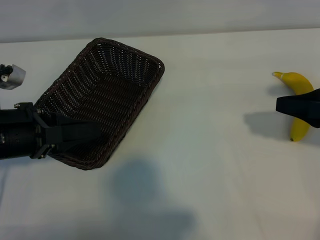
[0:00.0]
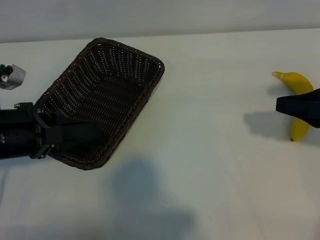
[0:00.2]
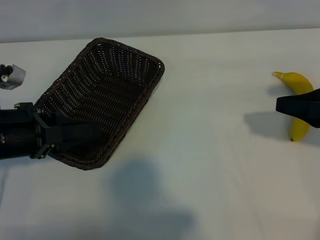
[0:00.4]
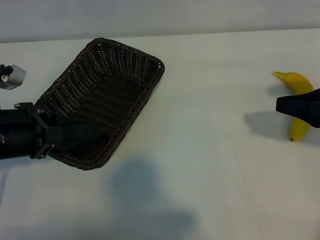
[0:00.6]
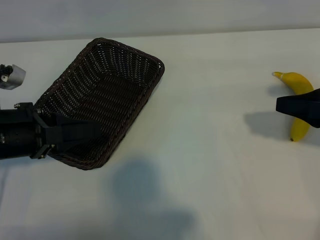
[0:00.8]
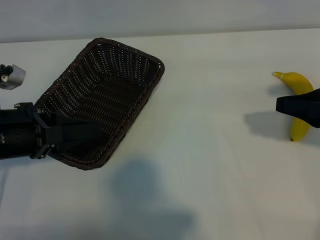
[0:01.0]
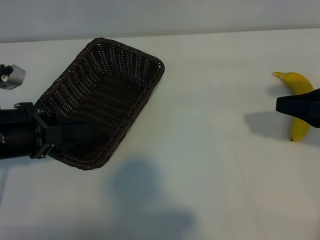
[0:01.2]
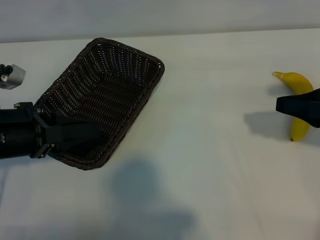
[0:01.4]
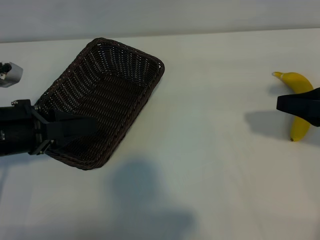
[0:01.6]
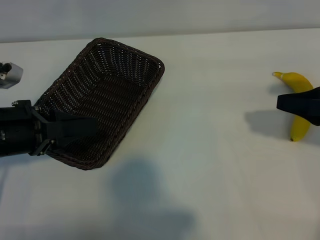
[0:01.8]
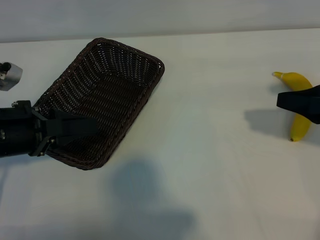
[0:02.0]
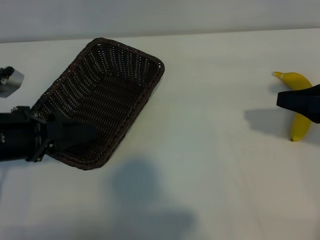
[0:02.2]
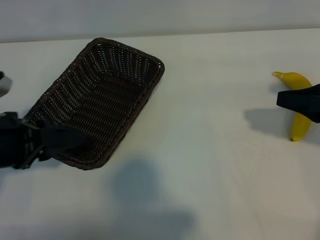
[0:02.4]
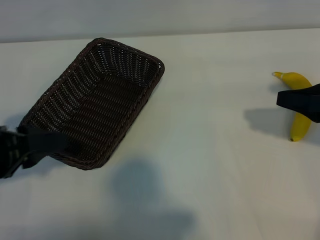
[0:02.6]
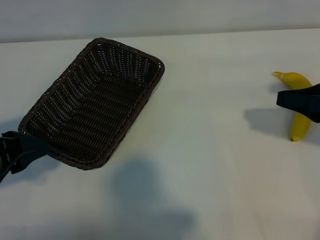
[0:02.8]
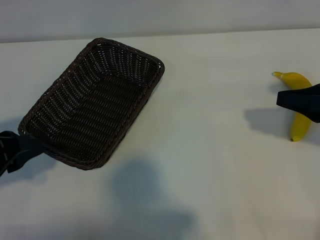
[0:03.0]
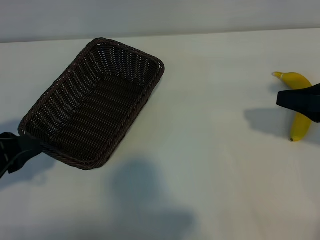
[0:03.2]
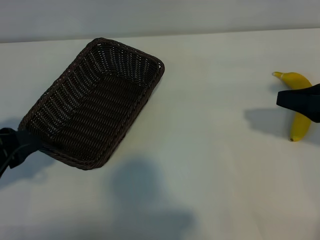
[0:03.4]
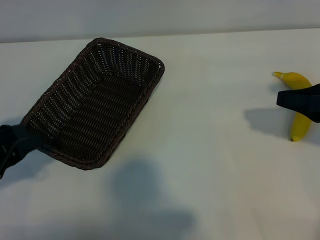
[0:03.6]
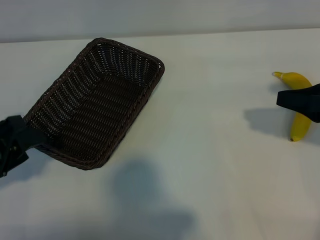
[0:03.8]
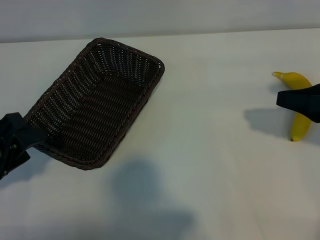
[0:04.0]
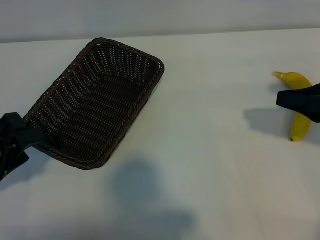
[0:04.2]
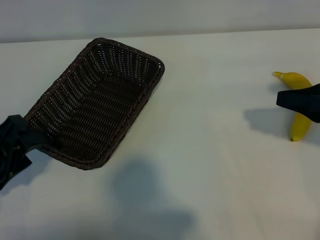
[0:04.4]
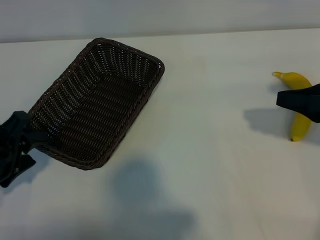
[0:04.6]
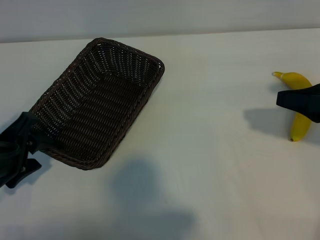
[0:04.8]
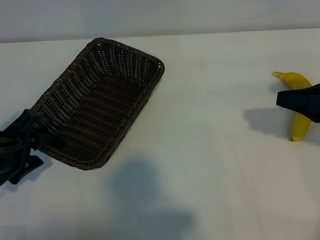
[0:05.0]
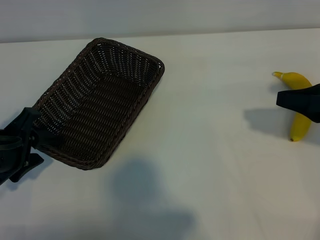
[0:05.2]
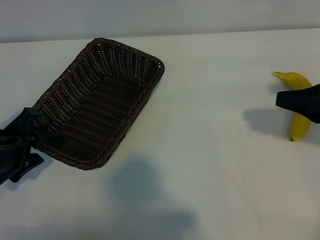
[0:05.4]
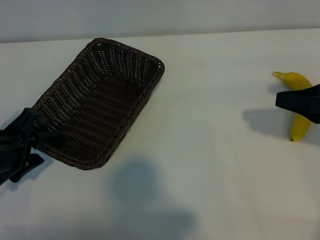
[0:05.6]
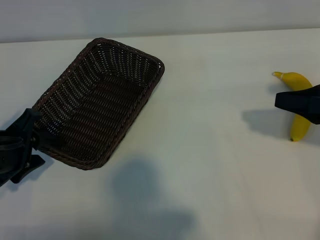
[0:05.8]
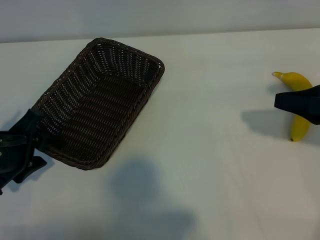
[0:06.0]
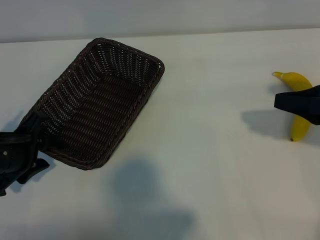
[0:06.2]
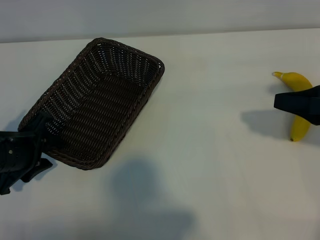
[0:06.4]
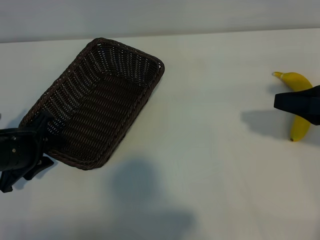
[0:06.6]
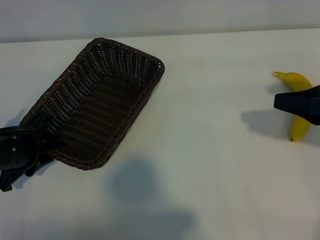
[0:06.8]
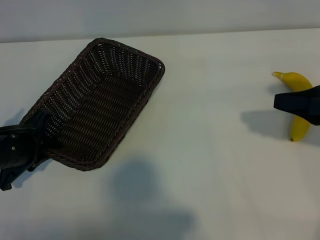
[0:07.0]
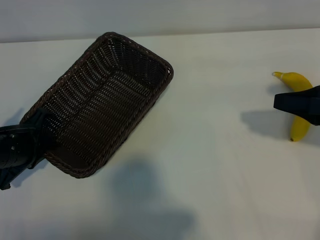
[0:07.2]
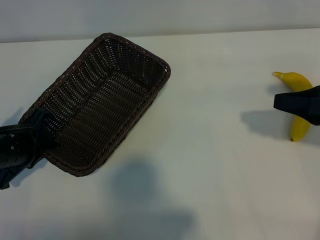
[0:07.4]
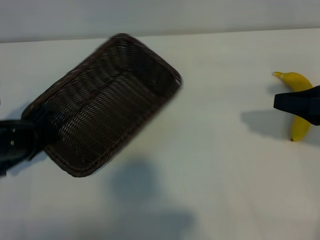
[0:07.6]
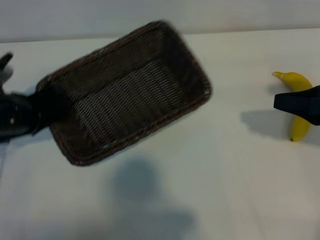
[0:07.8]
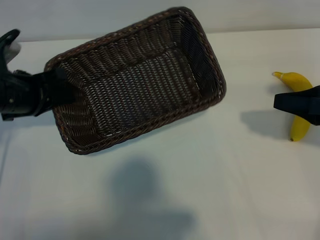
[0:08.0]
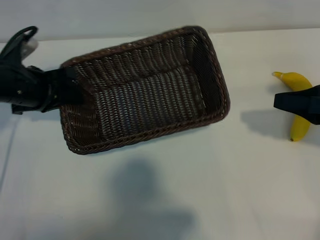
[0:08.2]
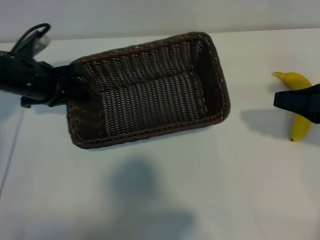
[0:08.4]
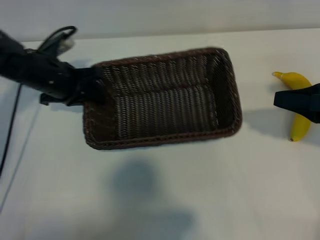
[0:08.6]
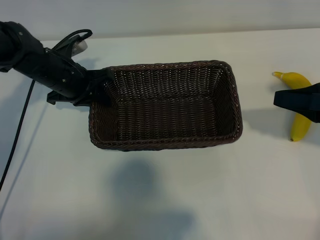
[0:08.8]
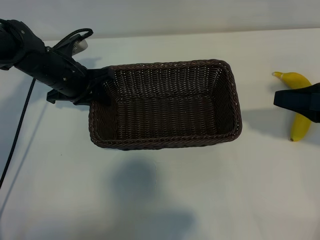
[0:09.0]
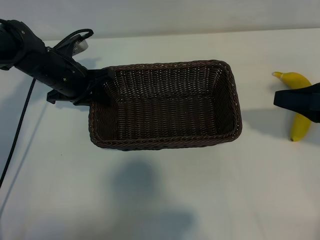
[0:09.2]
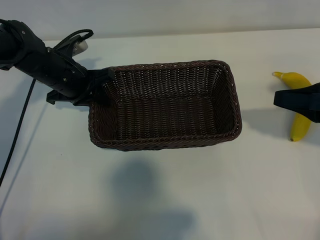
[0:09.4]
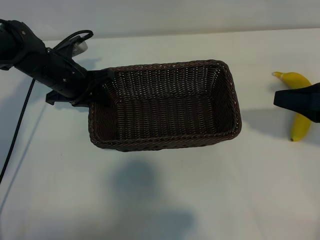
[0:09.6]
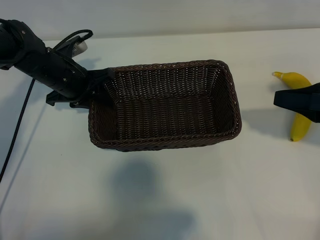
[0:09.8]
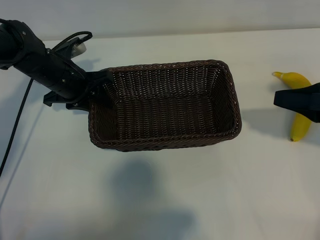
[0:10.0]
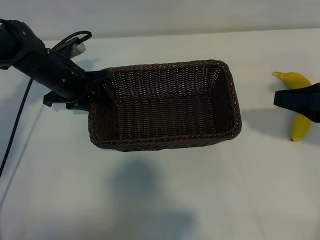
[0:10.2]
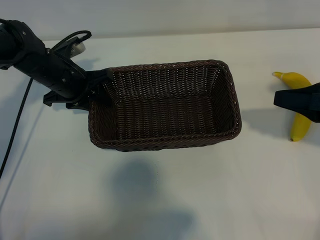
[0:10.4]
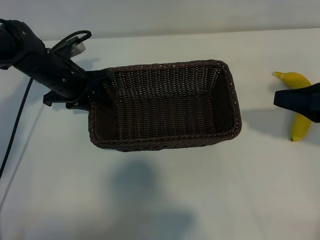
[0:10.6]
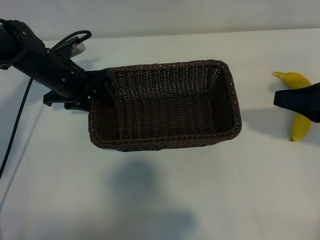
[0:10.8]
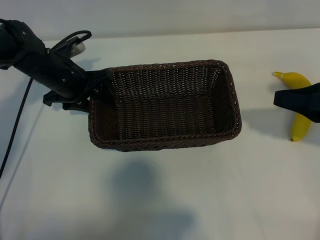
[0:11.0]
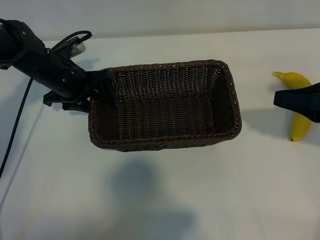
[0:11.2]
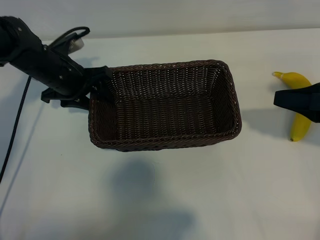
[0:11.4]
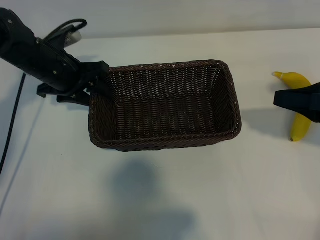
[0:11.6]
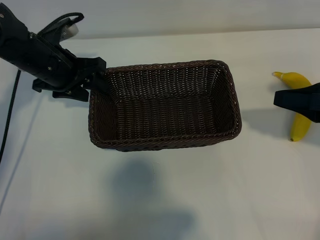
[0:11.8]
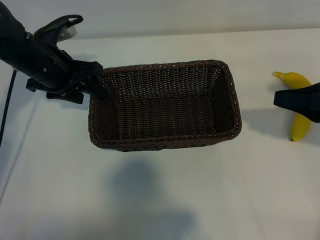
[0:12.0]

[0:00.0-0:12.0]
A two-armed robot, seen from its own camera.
Task of the whole recording: pick up the banana and put it into the basket.
Step, 0:01.2 to 0:07.0: Grasp the basket with the left gripper.

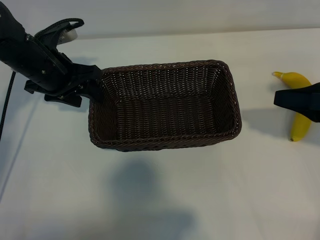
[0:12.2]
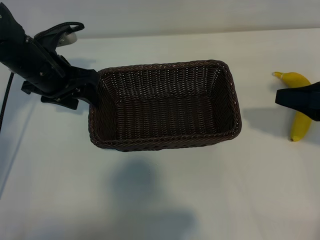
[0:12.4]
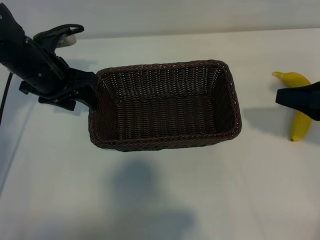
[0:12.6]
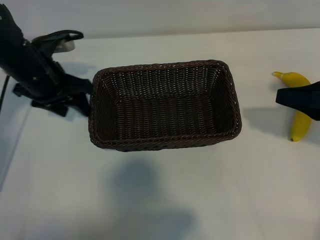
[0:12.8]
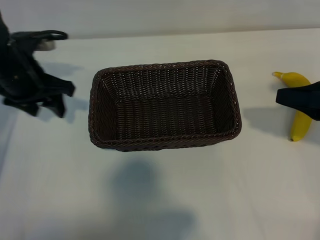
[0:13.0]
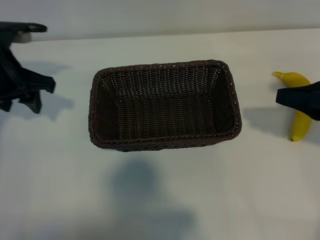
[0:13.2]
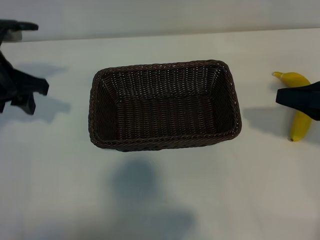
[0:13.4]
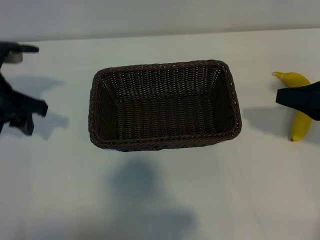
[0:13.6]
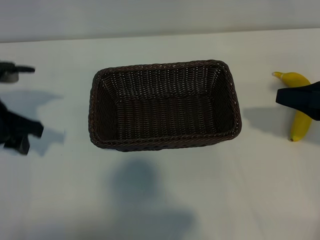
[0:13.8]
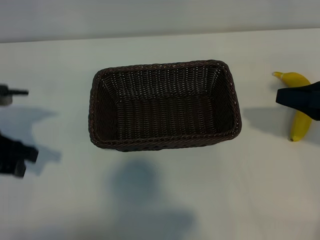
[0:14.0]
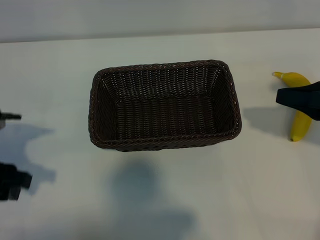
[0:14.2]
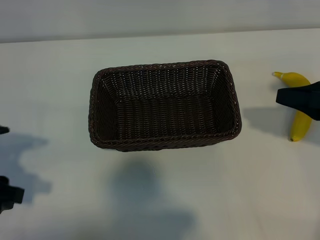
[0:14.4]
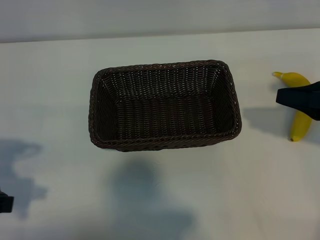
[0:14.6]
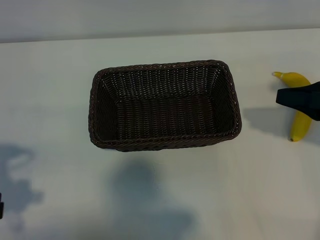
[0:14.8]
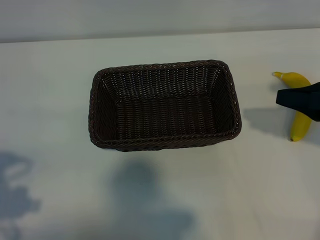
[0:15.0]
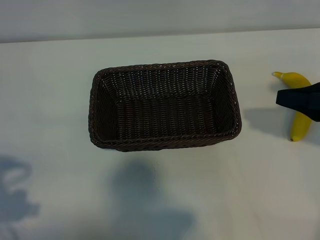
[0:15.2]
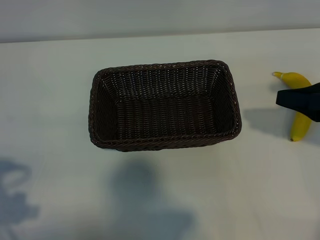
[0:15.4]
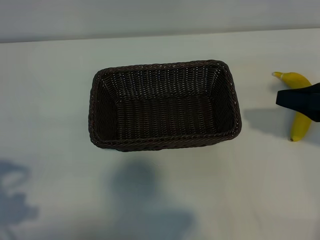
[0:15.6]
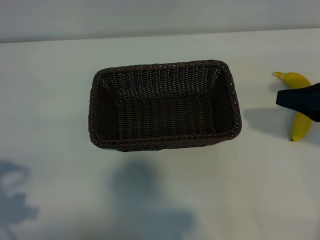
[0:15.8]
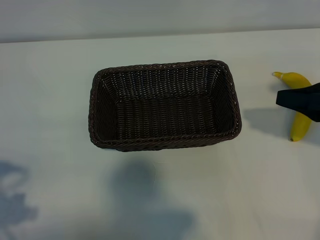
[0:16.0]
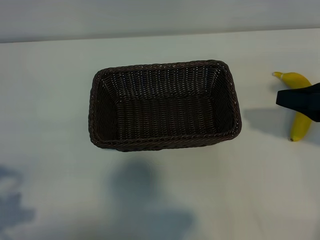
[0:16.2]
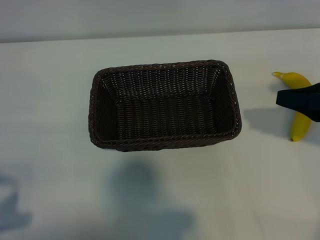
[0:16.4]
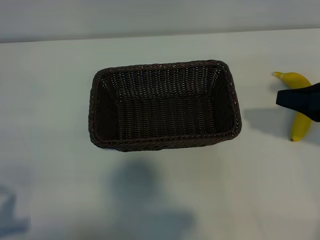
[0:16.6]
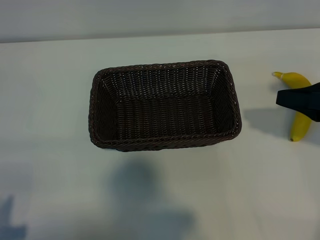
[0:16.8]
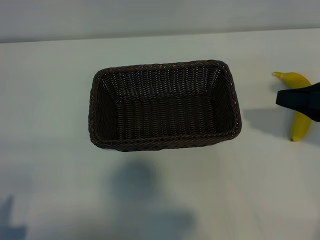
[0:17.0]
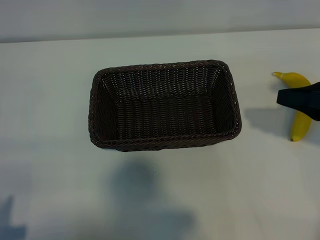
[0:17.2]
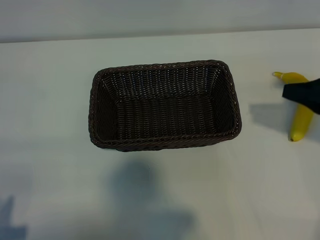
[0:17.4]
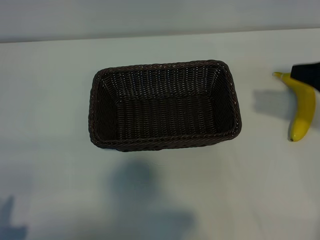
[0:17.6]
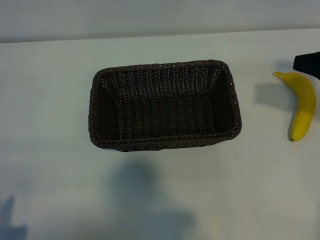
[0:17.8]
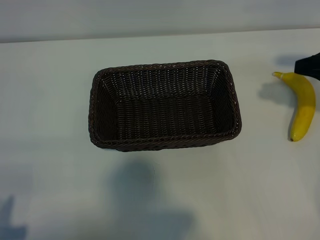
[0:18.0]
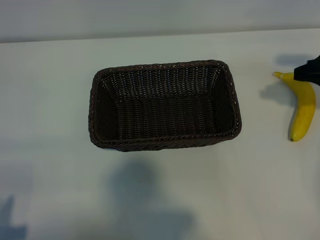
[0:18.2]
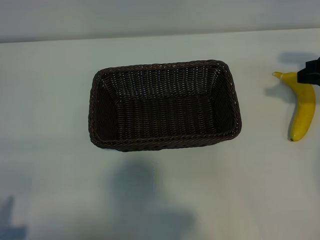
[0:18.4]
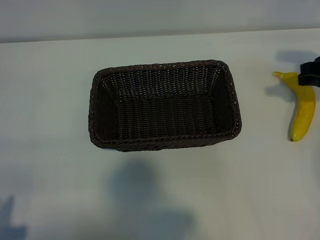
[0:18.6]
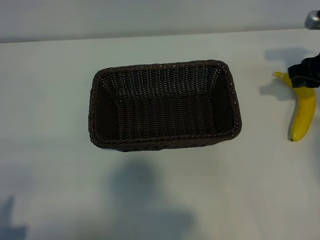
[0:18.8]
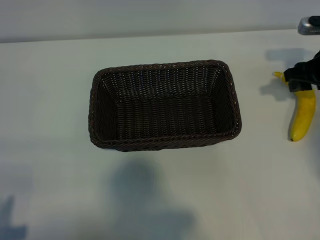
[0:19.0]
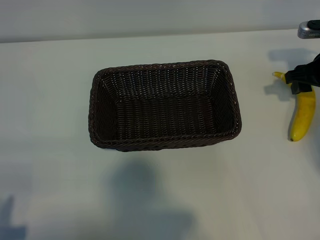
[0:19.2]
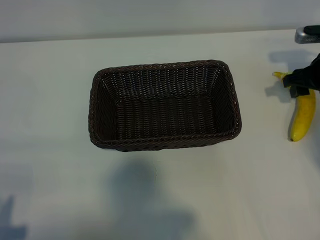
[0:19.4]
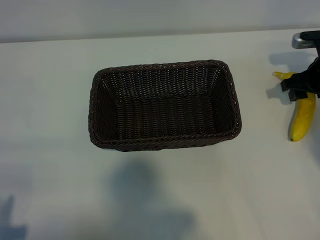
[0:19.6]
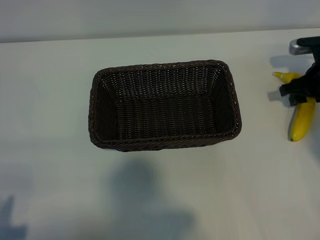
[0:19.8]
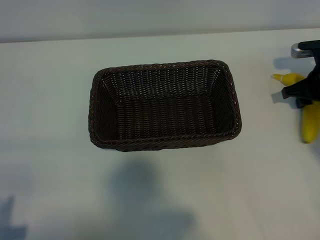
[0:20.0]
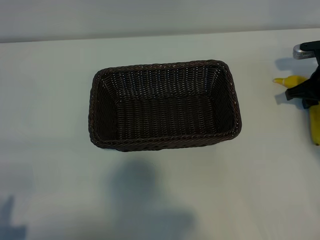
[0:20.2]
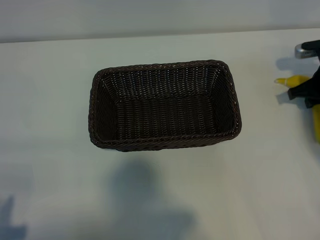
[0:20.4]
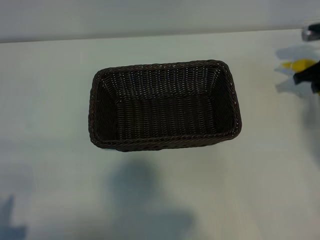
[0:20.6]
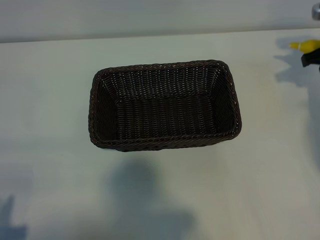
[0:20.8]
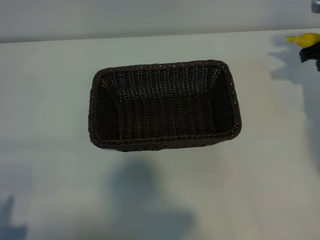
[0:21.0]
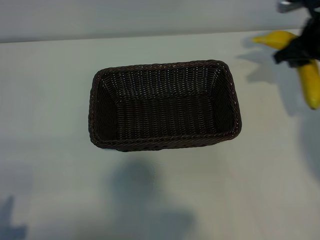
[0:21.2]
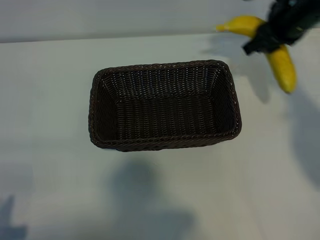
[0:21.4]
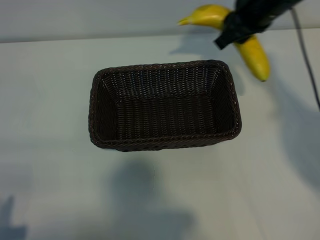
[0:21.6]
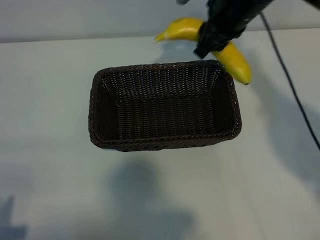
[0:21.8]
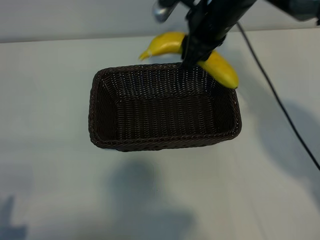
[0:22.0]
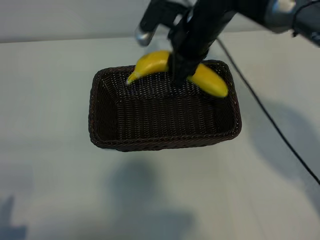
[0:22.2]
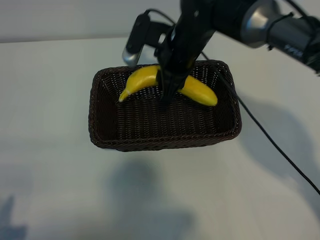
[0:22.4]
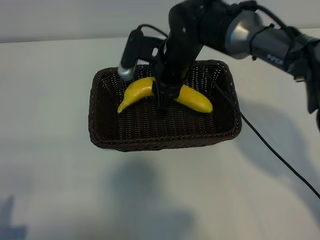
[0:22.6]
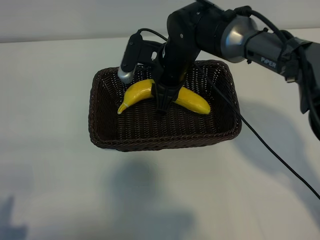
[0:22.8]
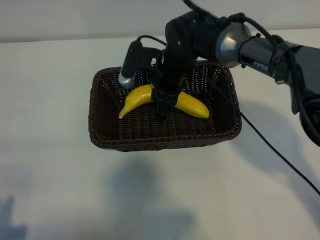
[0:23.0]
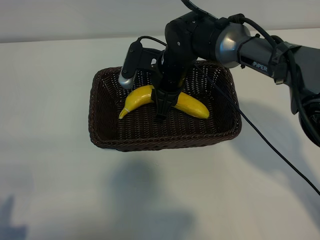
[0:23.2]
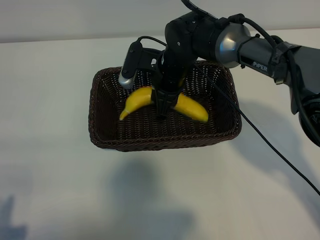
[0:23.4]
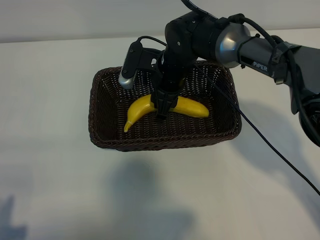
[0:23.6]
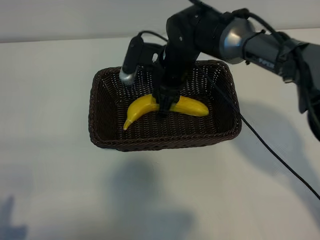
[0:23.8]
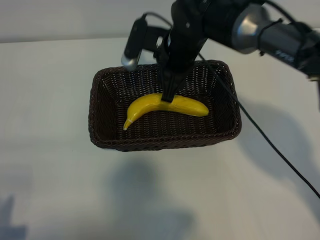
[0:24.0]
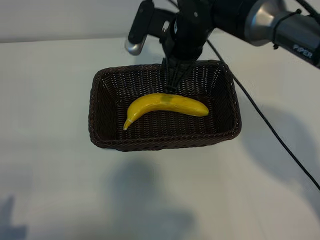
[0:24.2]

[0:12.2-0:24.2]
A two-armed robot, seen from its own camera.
Task of the whole recording: pick up the banana and put it into the basket.
Step, 0:12.4 to 0:20.2: Grasp the banana with right gripper.
